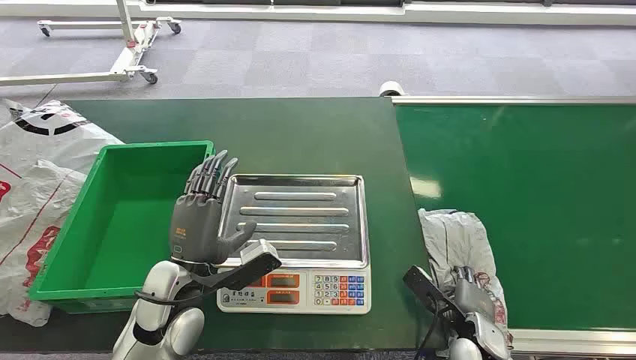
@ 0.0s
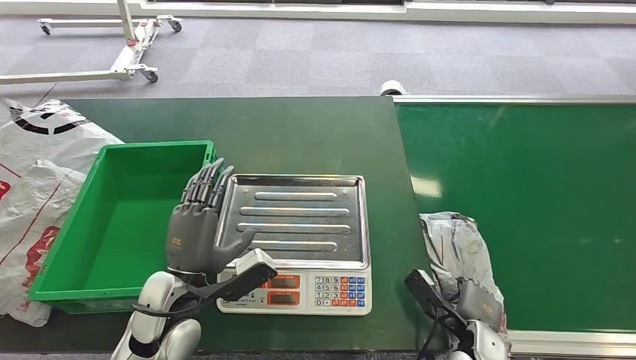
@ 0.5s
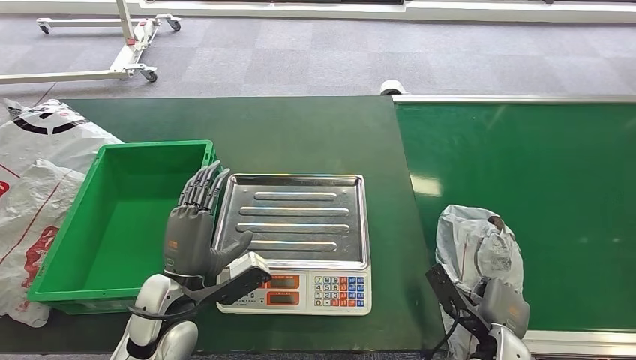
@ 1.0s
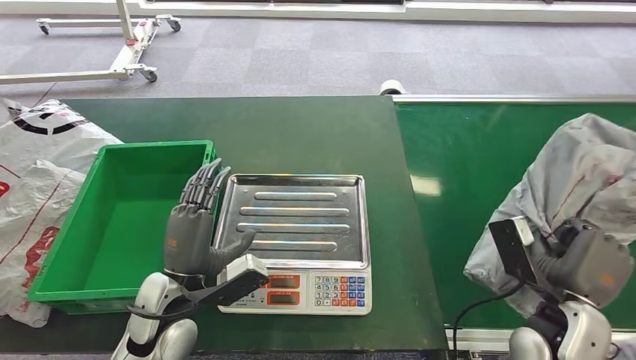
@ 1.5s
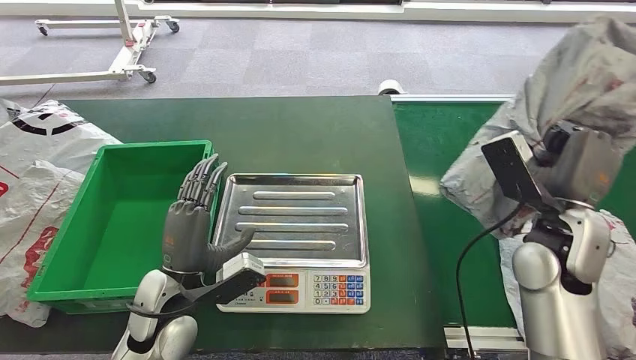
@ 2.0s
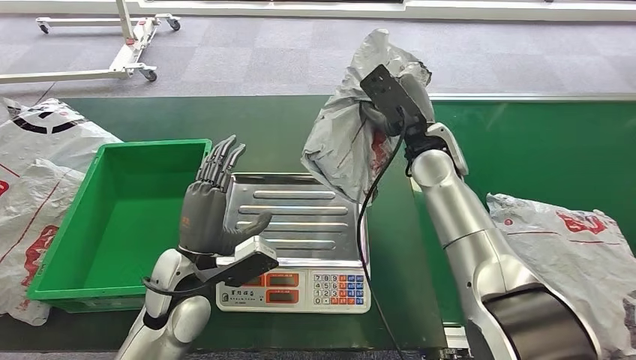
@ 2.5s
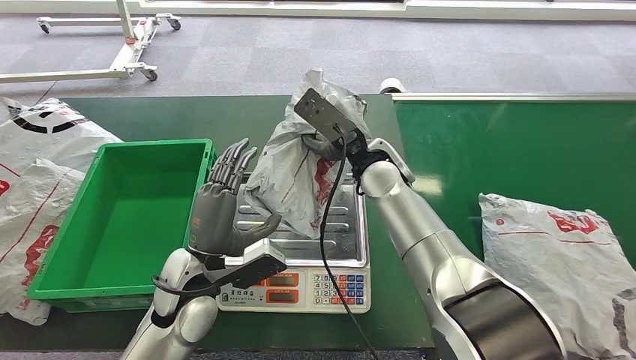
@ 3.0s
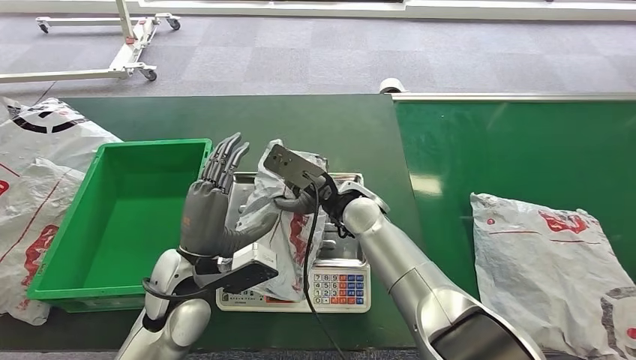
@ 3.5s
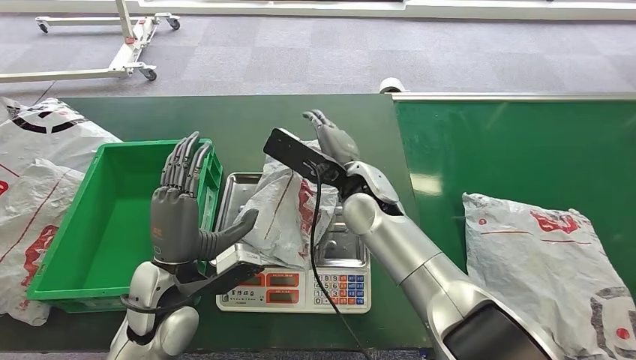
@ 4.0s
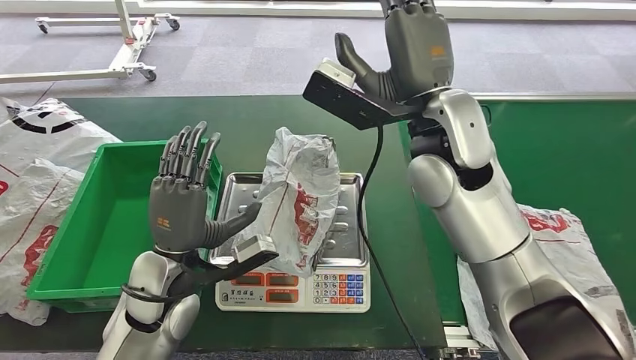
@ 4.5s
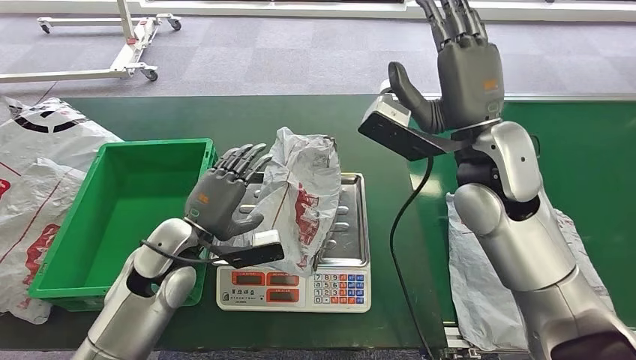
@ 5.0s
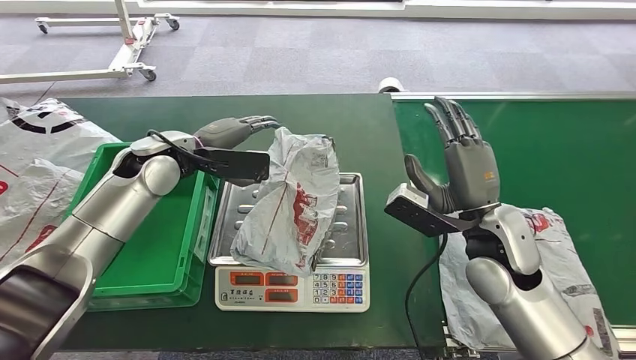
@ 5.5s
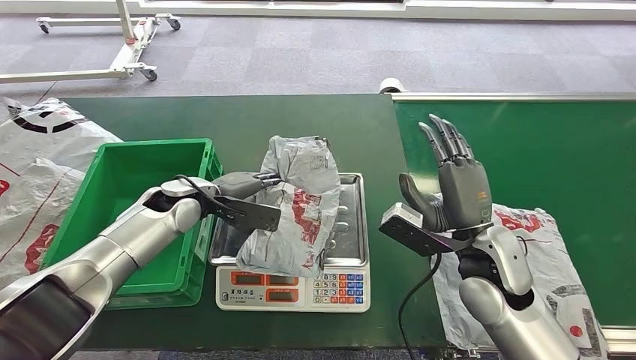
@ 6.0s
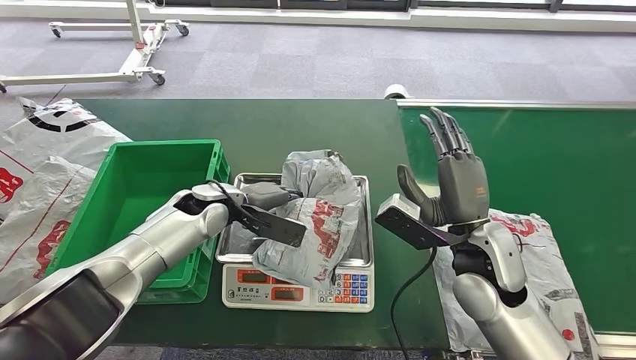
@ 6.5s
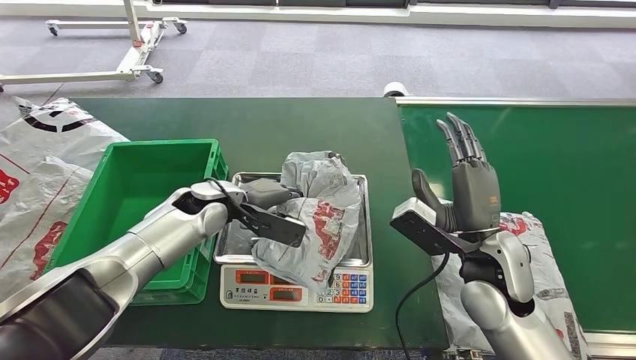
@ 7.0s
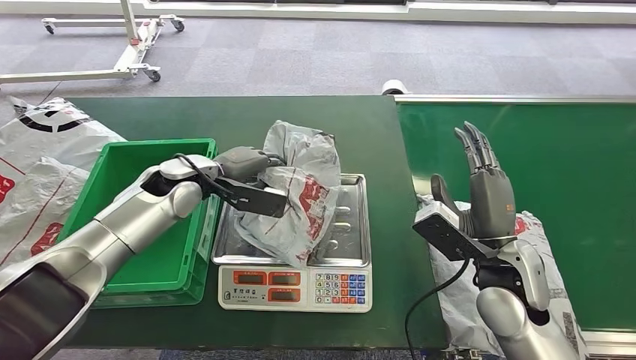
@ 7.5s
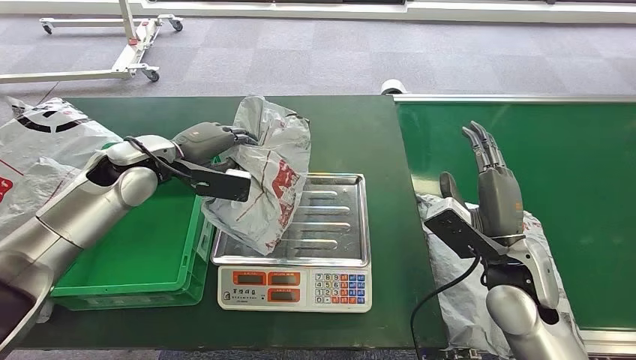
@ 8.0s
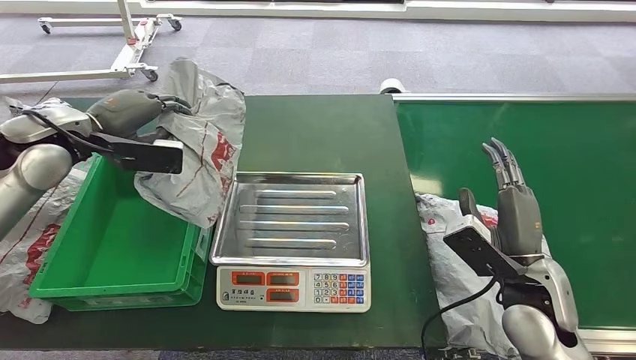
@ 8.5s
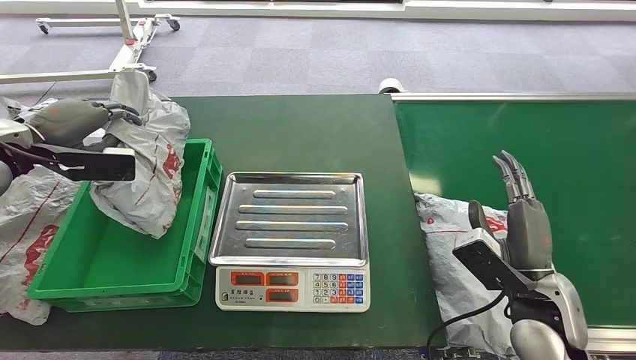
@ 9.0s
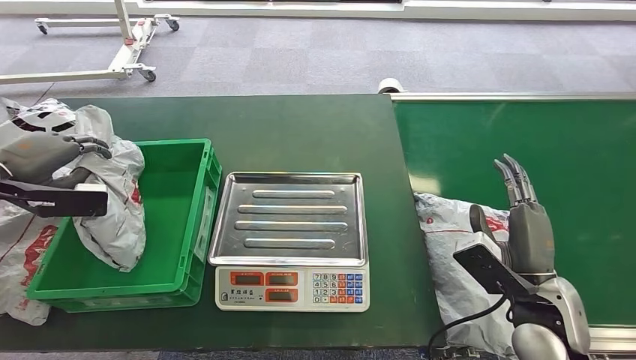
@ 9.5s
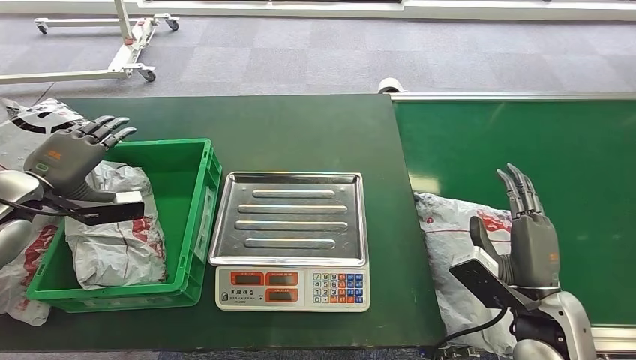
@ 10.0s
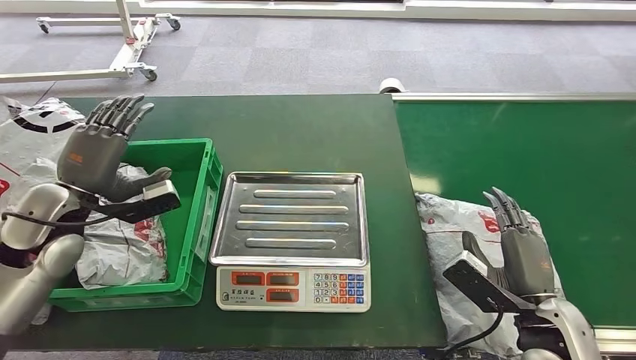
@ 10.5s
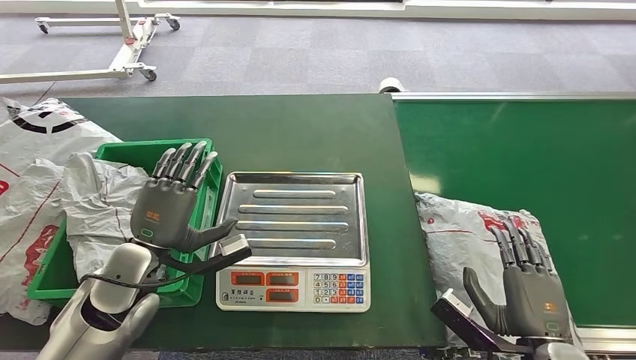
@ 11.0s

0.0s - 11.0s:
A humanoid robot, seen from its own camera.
Step, 0.0s - 2.0s: Pick up the package from the conveyor belt.
Step, 2.5s - 4.0s: Place the package onto the inbound machine.
Step, 5.0s - 8.5s: Pick up the package from the inbound machine.
Step, 9.0s - 11.0s: Place the package into the parcel locker.
